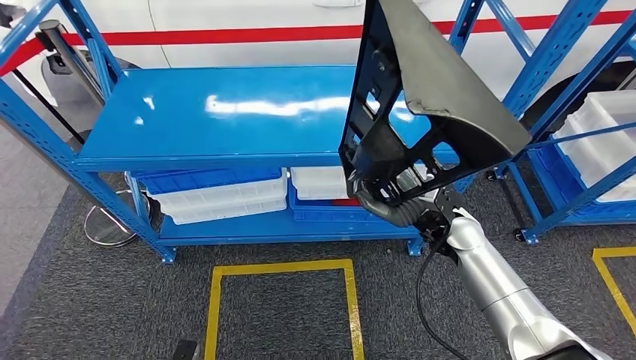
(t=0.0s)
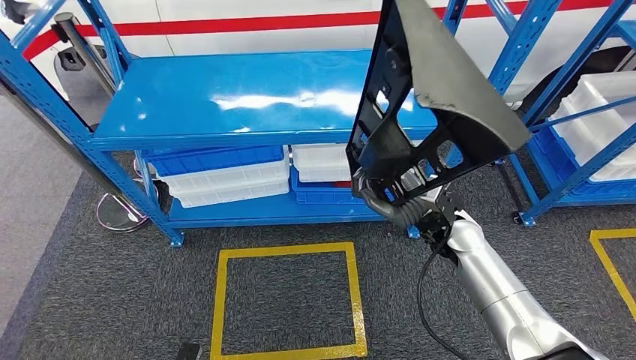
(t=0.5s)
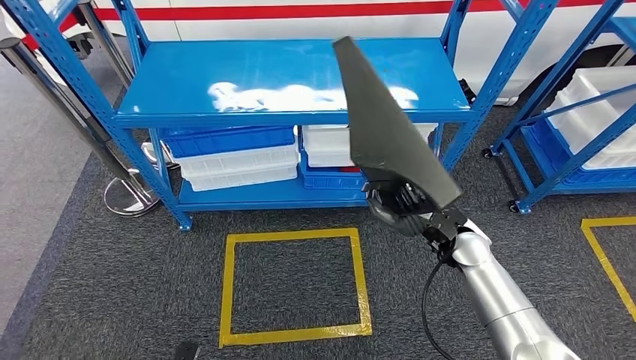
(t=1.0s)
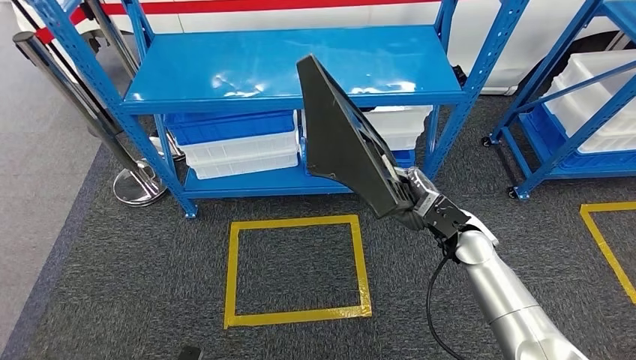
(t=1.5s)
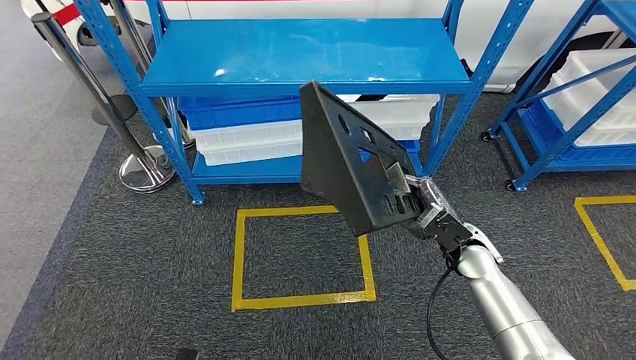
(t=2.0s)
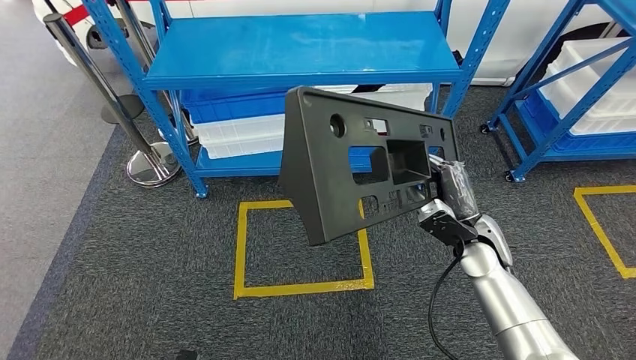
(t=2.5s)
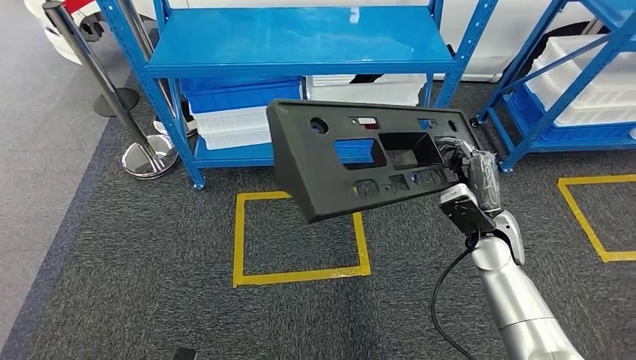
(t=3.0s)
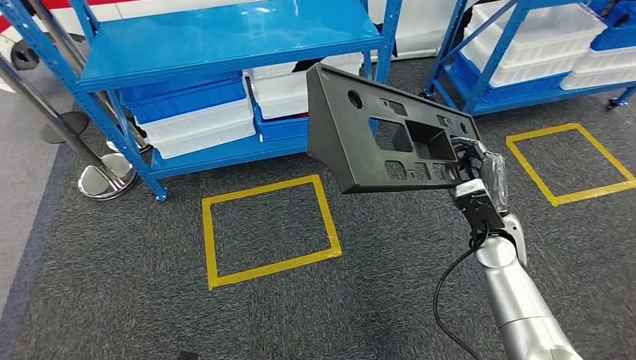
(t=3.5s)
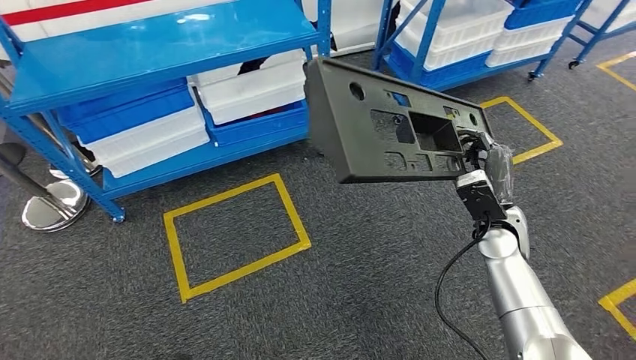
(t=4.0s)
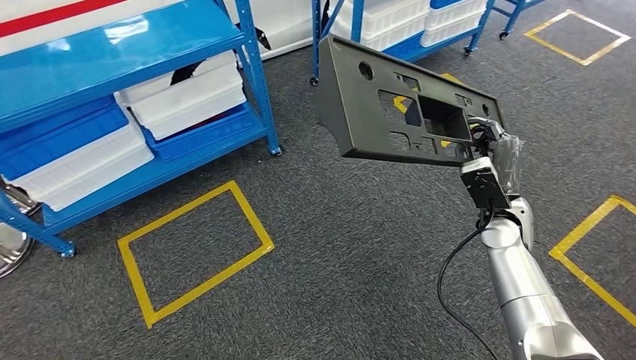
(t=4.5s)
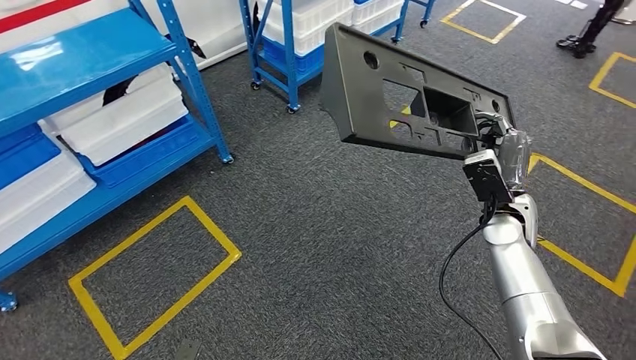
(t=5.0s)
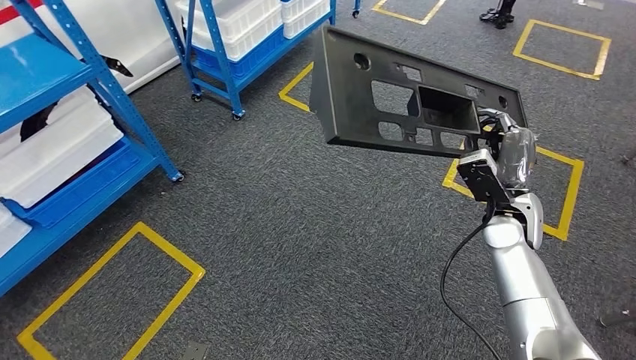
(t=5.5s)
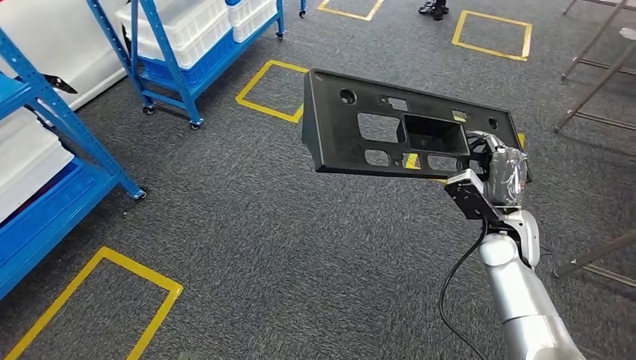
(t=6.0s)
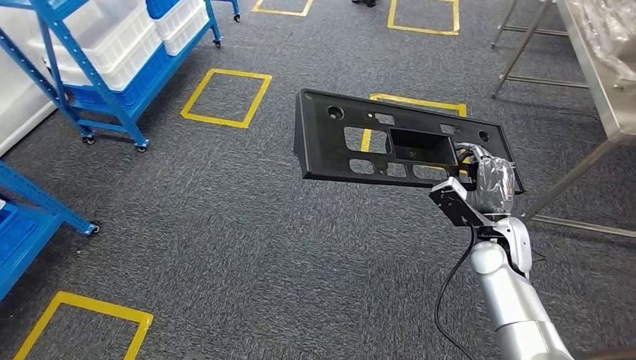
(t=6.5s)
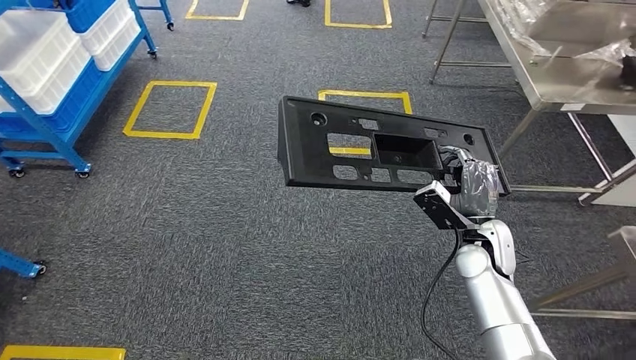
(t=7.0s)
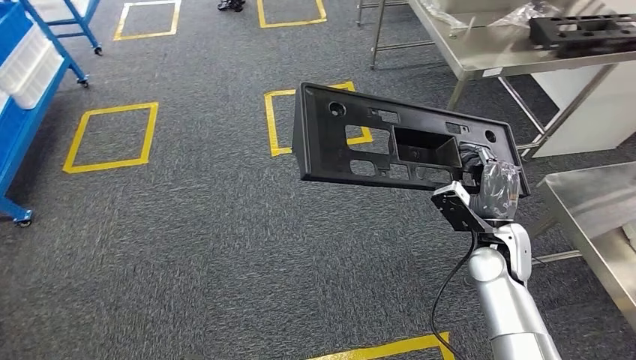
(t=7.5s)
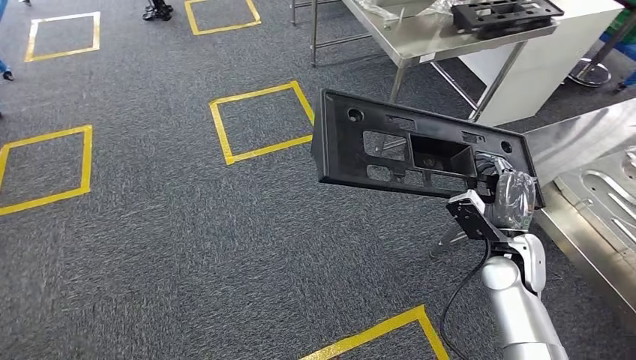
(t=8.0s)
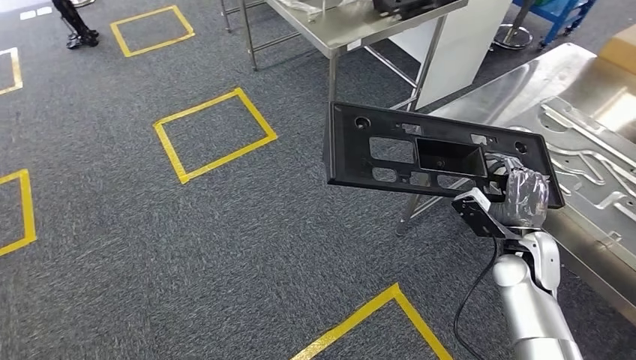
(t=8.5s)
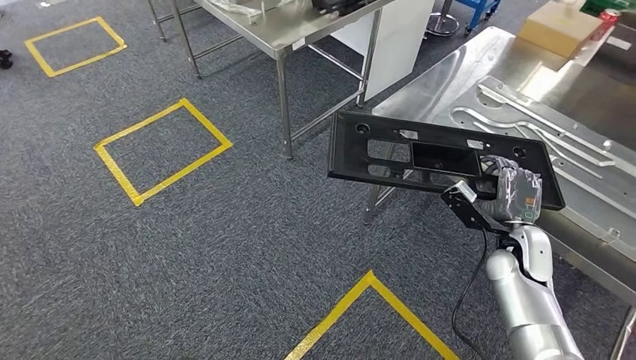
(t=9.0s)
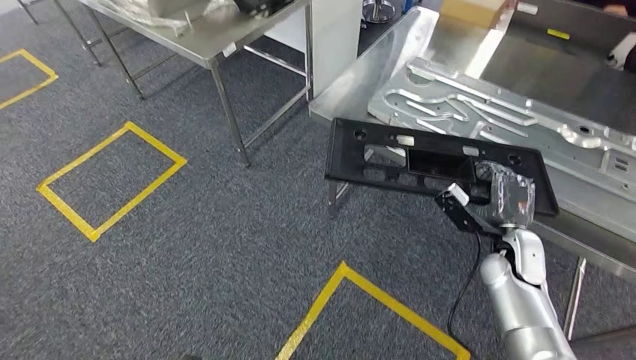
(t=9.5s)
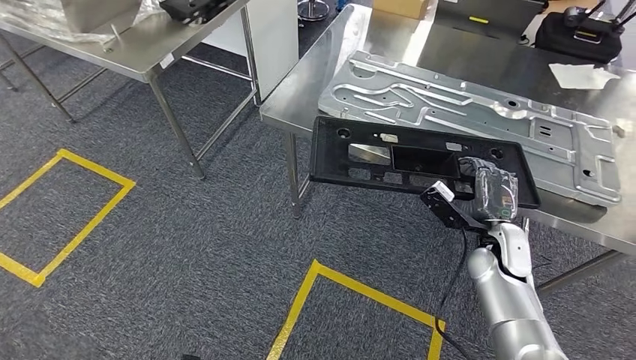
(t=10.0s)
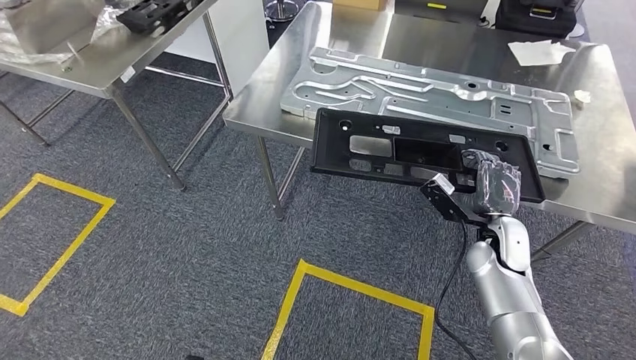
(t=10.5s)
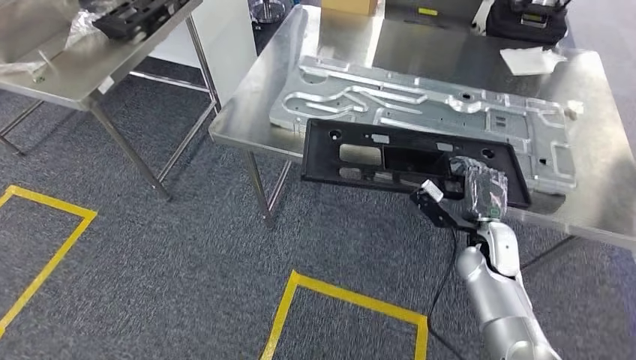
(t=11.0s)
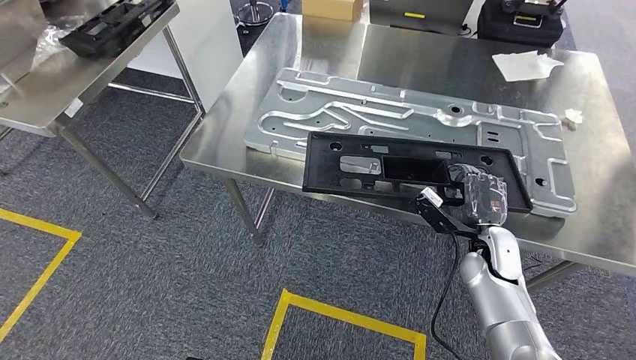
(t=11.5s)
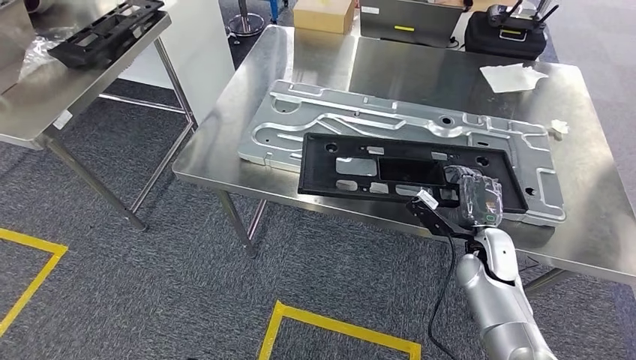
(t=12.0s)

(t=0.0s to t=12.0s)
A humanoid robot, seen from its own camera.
Step, t=0.0s - t=8.5s: Move the large material to the workbench.

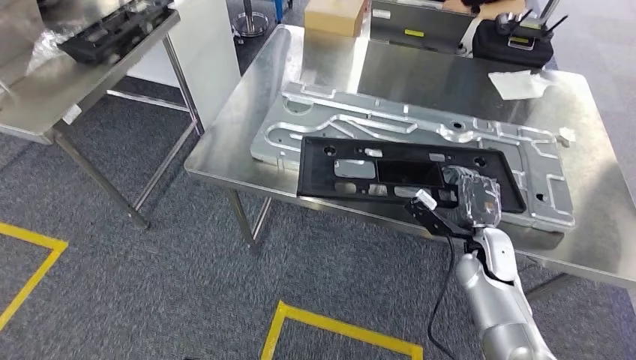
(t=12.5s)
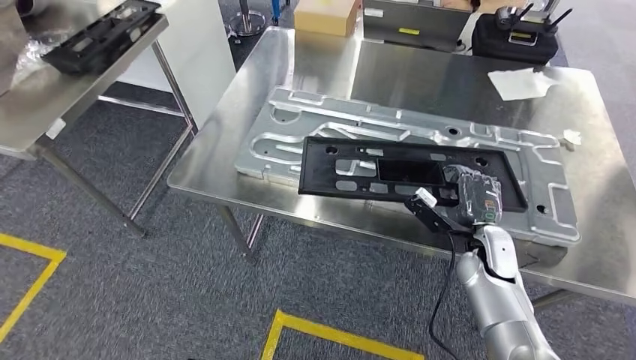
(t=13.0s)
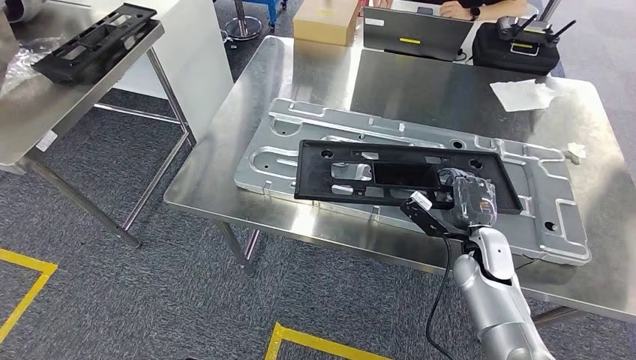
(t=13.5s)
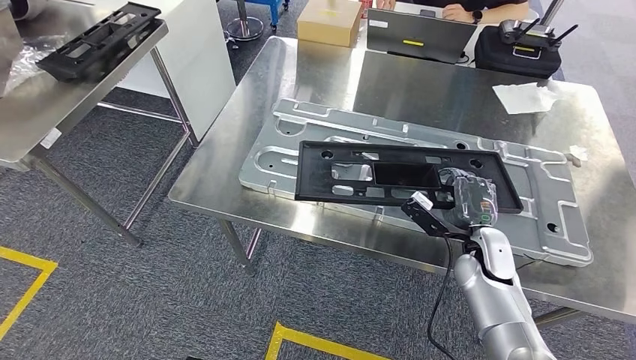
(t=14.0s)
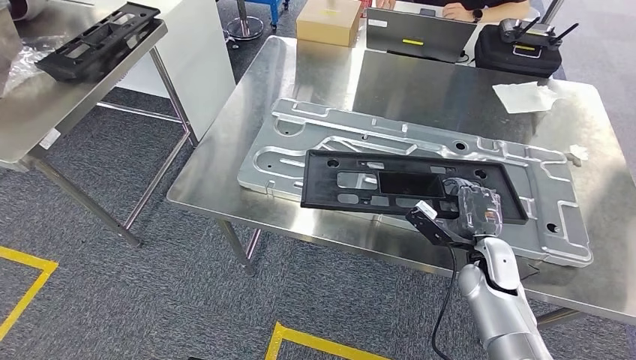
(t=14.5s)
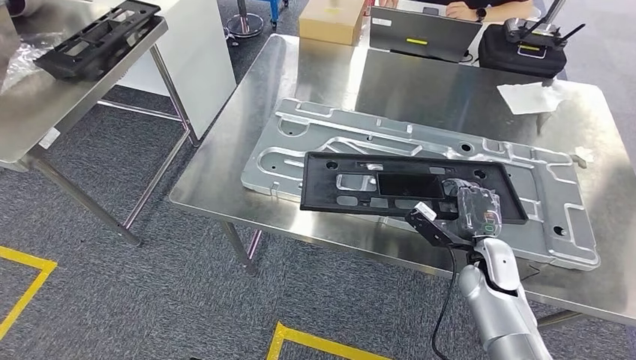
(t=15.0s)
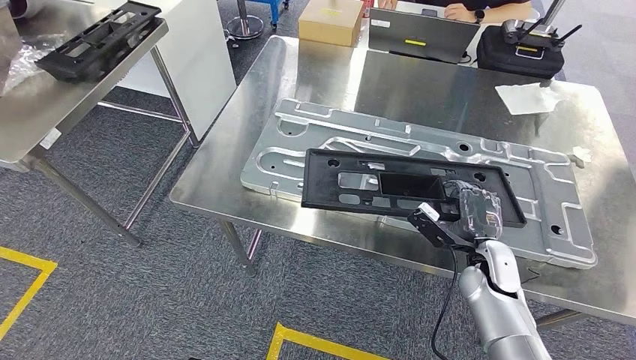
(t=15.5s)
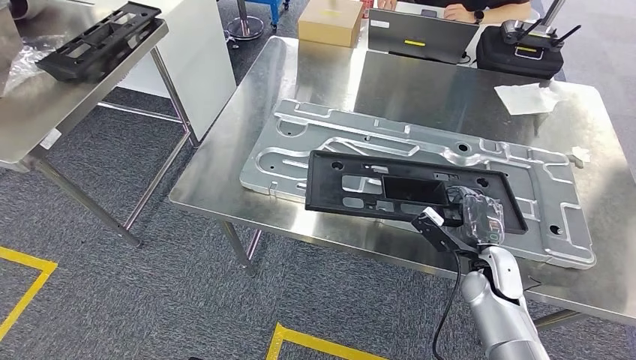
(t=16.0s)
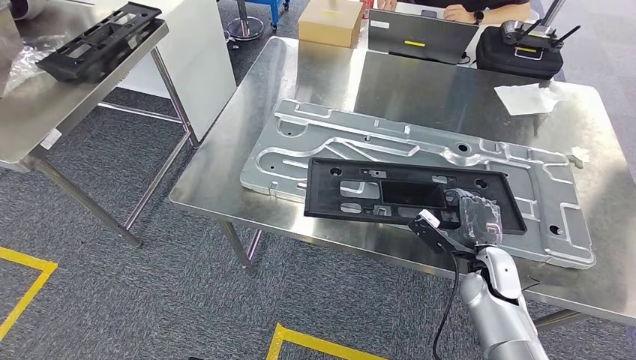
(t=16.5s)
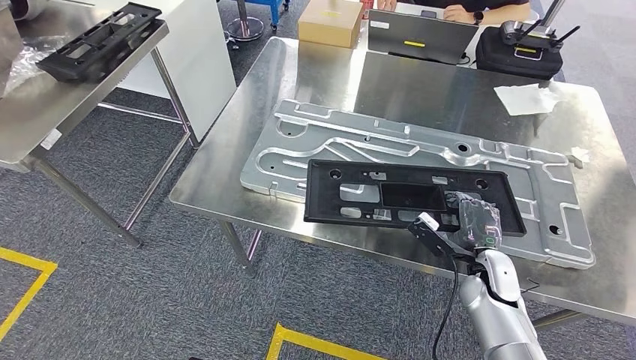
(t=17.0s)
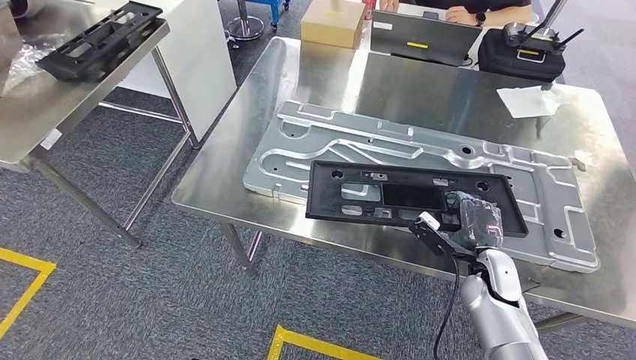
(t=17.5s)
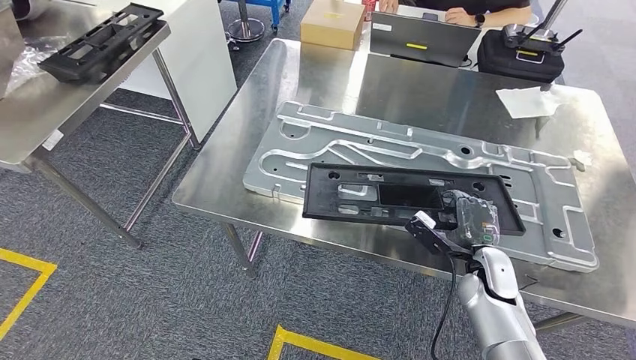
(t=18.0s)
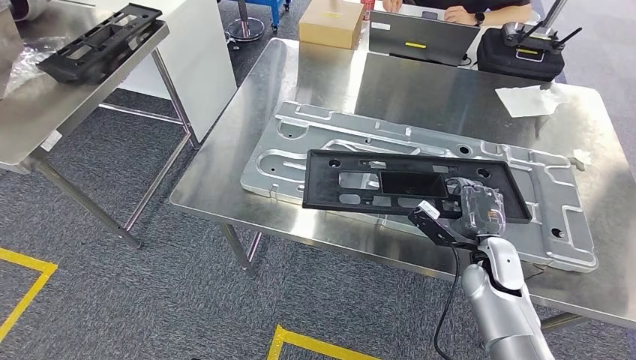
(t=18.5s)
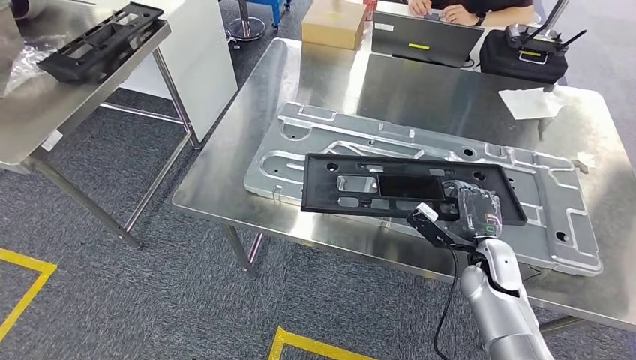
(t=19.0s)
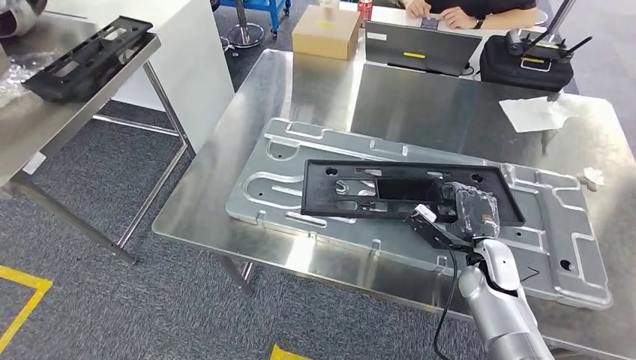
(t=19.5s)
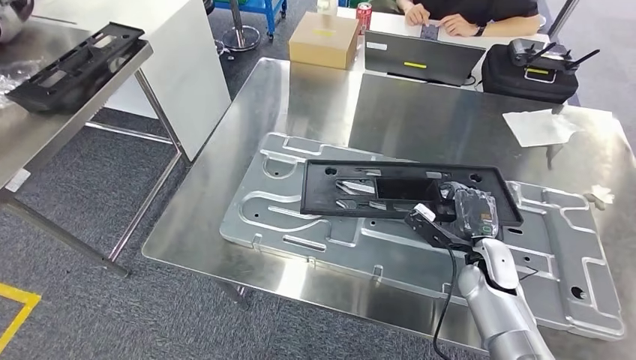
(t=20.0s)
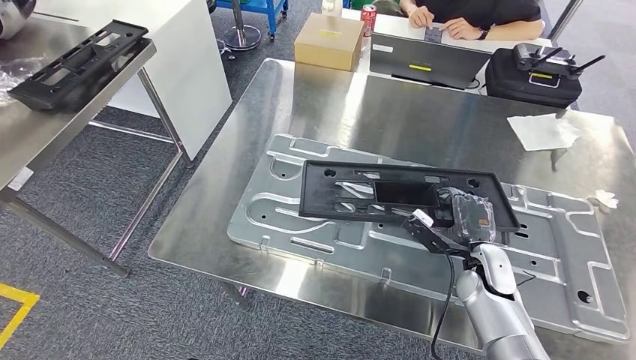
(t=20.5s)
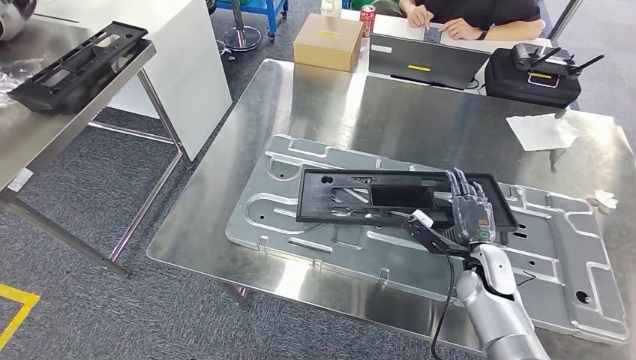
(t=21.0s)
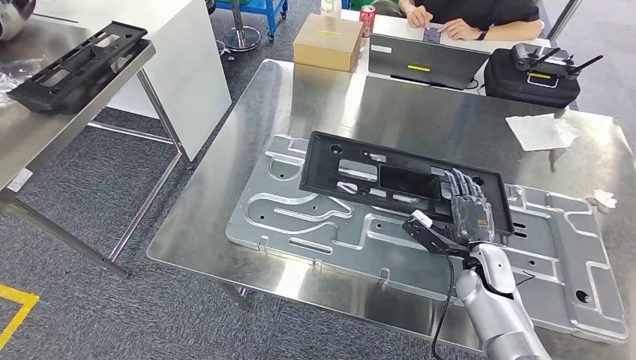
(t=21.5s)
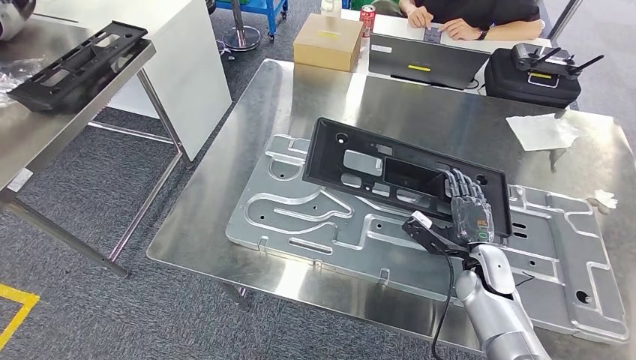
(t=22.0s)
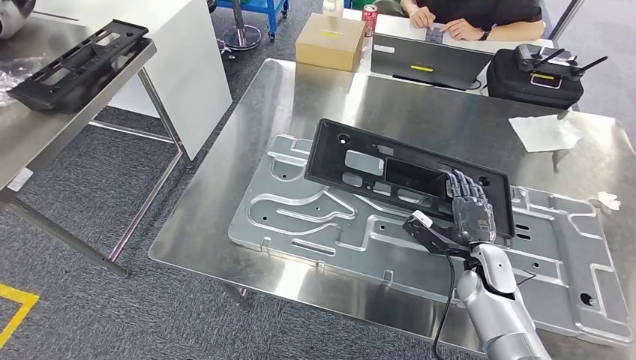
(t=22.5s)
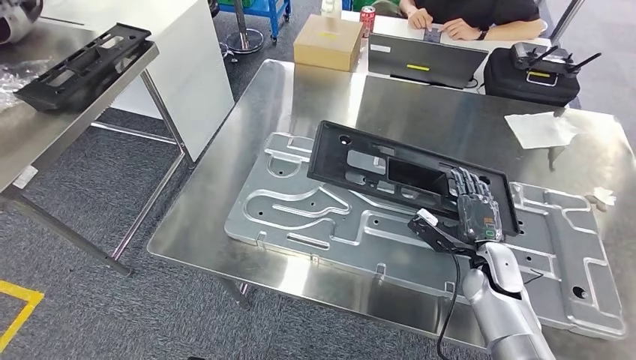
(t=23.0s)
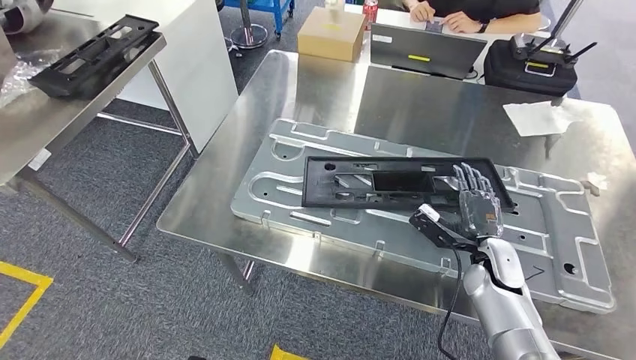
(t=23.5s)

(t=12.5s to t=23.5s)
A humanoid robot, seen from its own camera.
t=14.5s - t=16.0s: The hands make only small movements.
t=16.0s - t=18.0s: Both hands stay put.
t=20.0s - t=21.5s: Neither hand changes place.
